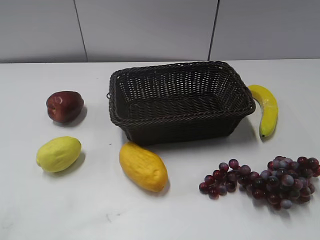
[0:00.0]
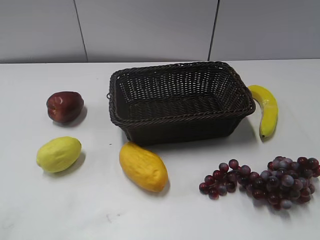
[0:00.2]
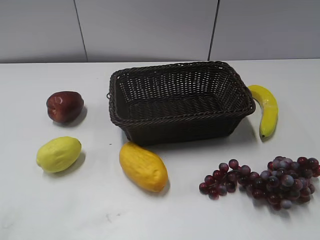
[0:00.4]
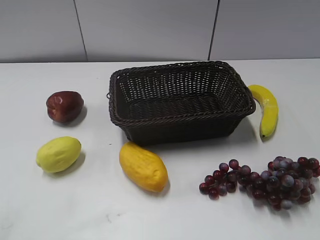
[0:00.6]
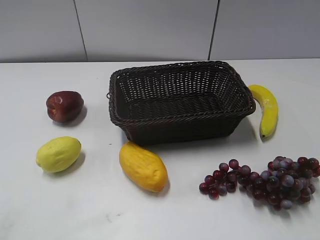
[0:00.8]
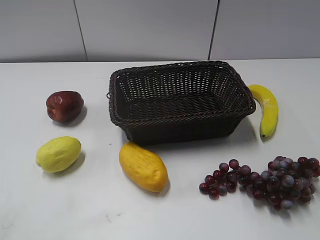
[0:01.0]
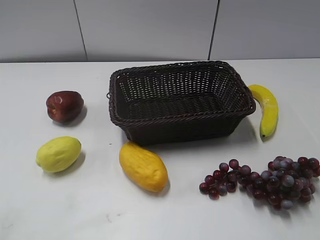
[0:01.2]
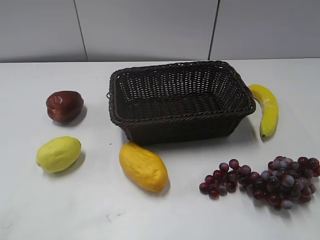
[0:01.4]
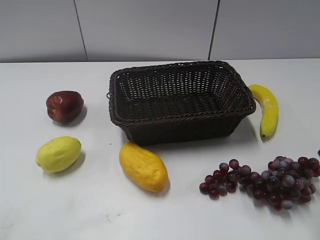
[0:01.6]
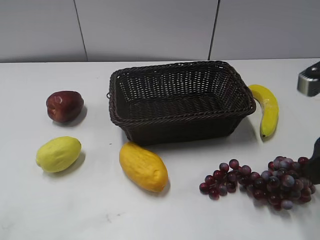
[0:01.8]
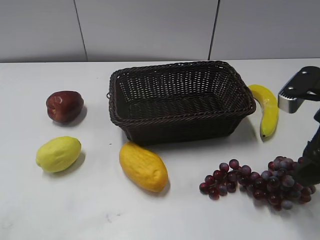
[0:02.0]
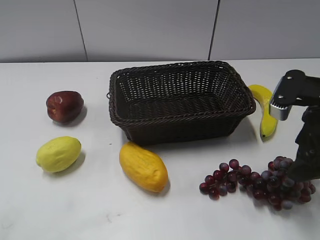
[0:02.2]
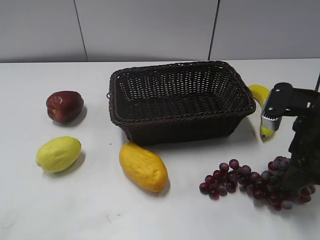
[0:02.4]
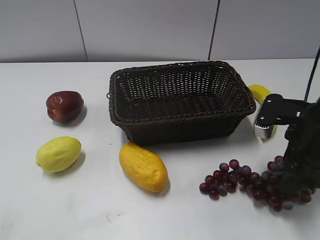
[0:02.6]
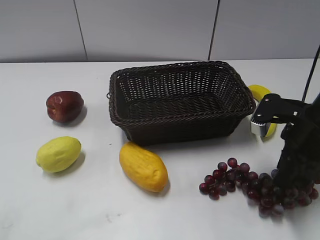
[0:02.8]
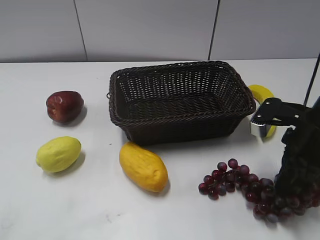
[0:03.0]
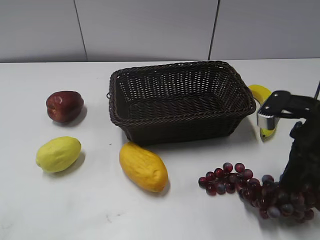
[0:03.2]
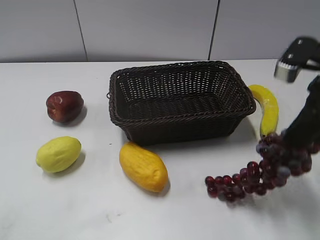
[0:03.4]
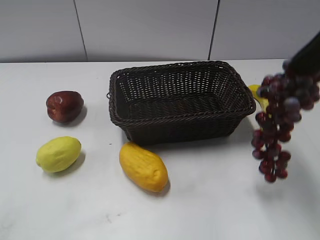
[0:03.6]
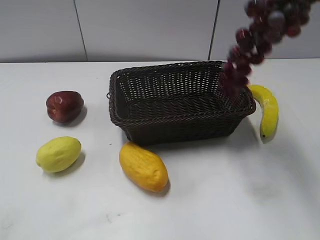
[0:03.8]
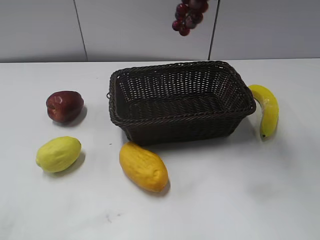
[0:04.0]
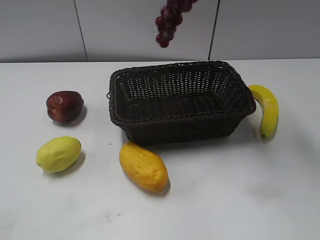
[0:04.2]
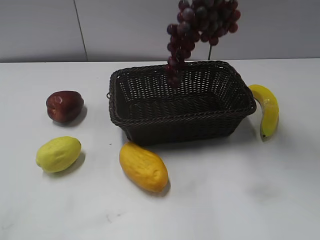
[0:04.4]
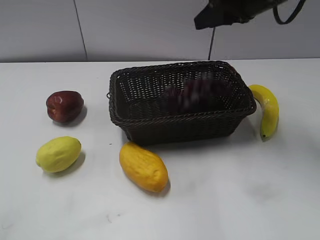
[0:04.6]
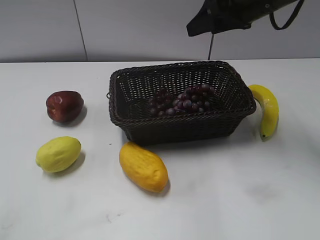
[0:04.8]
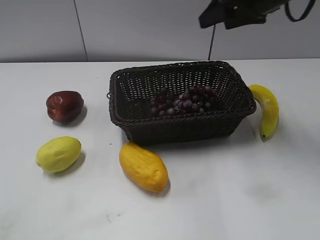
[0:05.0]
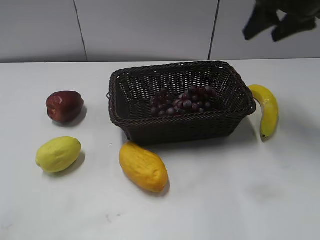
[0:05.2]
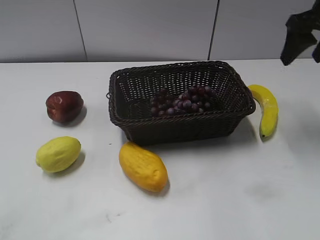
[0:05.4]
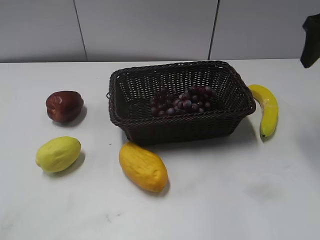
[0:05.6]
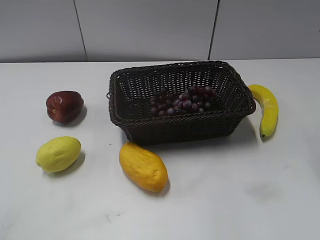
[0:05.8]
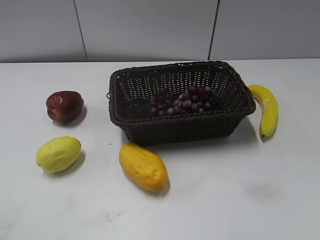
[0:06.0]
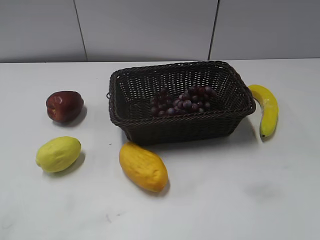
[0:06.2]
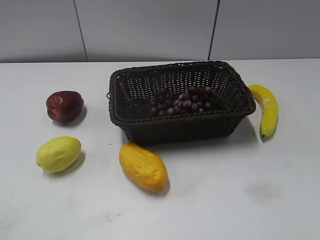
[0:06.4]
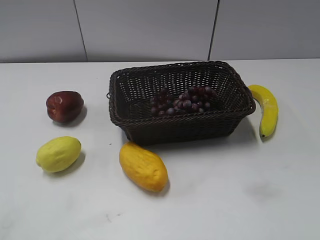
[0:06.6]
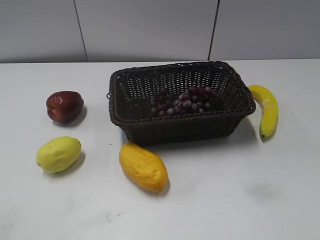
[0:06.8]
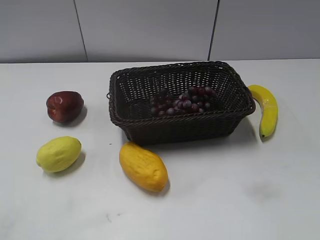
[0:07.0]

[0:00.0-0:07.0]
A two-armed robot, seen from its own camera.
Step, 0:01.6 to 0:03.0: Grasp the grape with right gripper.
Step, 0:03.4 to 0:05.0: Place the grape in the basket with right gripper.
0:01.4 to 0:02.8: The right gripper goes approximately 20 cm downward and forward, and closes up.
0:02.8 to 0:04.2: The right gripper is displaced upward by approximately 25 cm, and closes.
0:04.2 to 0:05.6: The right gripper travels downward and to the right by some 15 cm, and opens.
0:05.6 to 0:07.0: The right gripper is displaced backward by approximately 35 cm.

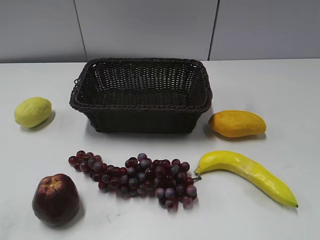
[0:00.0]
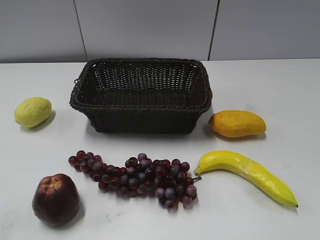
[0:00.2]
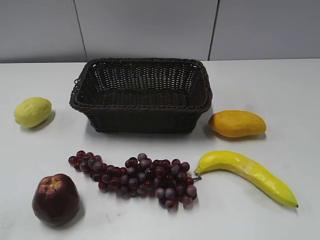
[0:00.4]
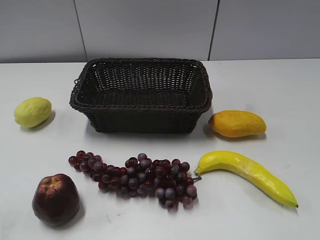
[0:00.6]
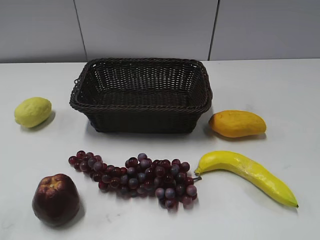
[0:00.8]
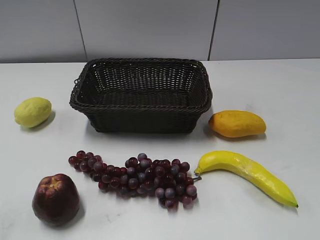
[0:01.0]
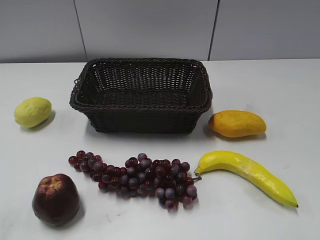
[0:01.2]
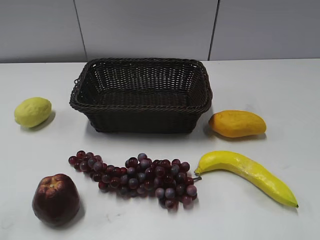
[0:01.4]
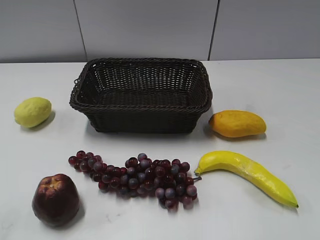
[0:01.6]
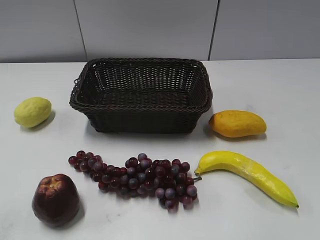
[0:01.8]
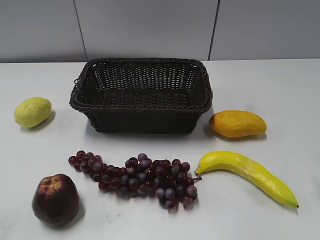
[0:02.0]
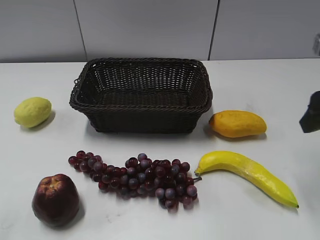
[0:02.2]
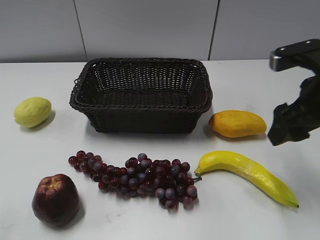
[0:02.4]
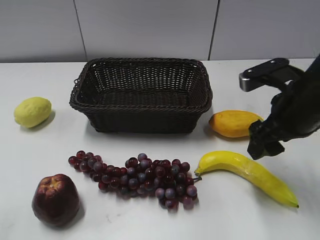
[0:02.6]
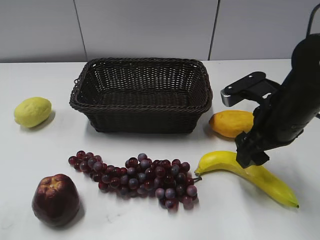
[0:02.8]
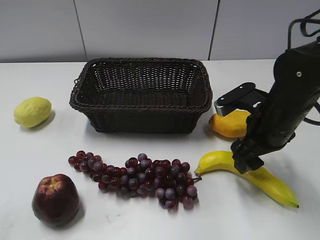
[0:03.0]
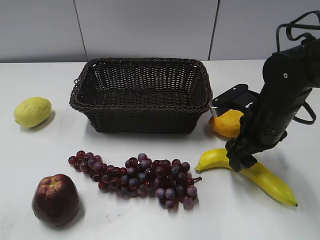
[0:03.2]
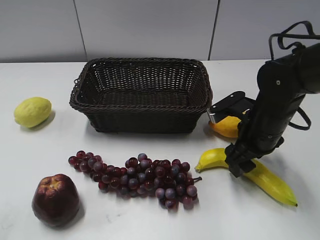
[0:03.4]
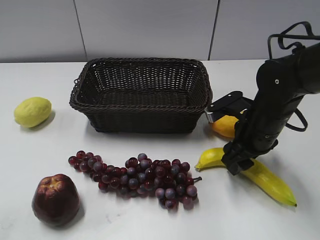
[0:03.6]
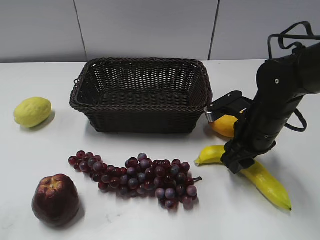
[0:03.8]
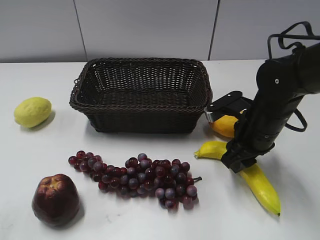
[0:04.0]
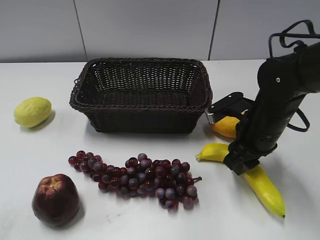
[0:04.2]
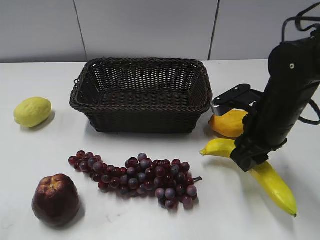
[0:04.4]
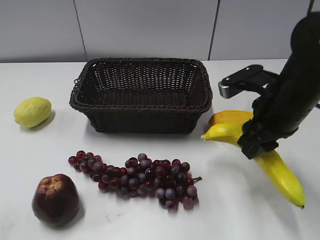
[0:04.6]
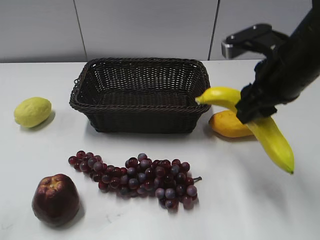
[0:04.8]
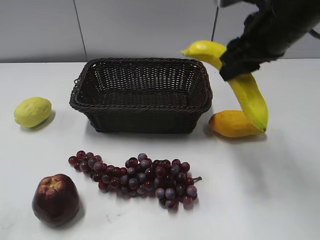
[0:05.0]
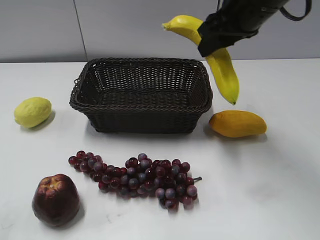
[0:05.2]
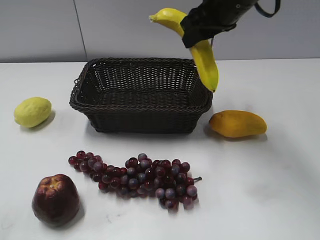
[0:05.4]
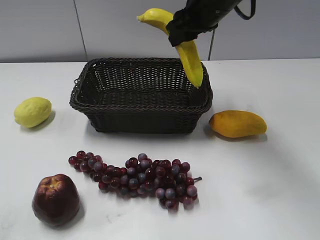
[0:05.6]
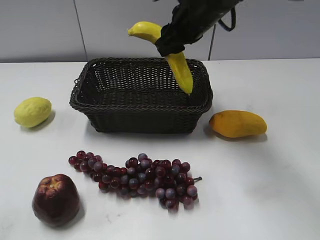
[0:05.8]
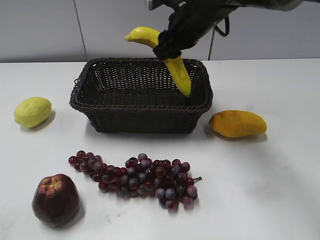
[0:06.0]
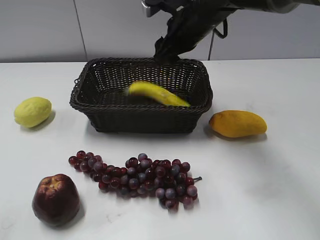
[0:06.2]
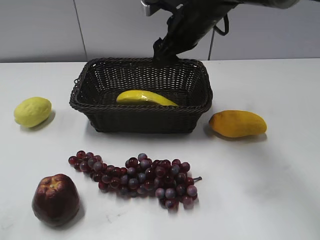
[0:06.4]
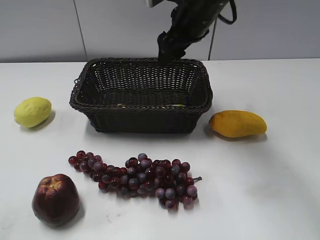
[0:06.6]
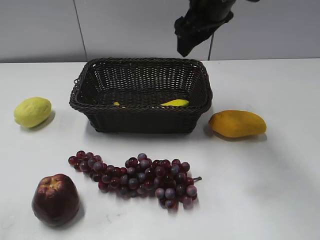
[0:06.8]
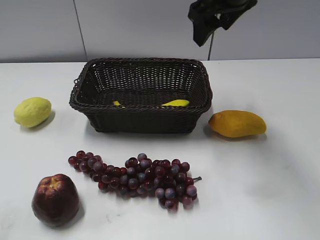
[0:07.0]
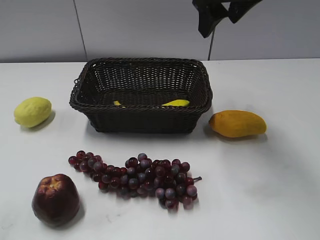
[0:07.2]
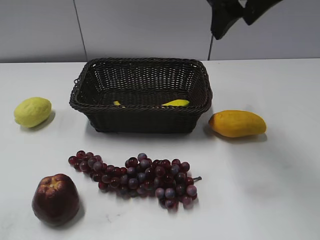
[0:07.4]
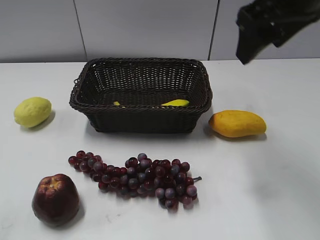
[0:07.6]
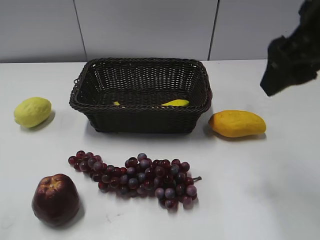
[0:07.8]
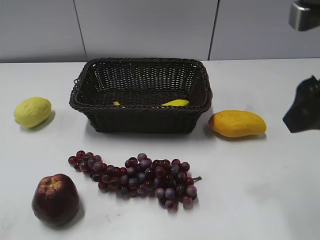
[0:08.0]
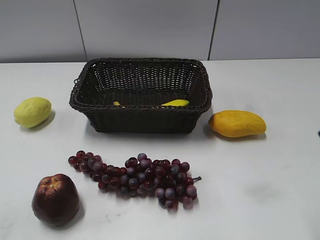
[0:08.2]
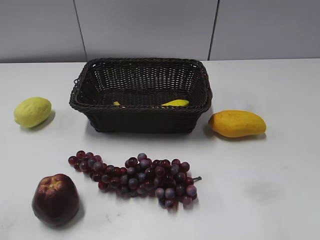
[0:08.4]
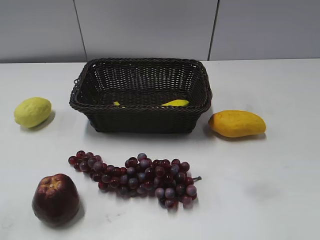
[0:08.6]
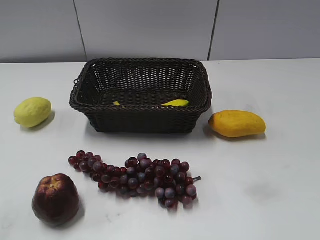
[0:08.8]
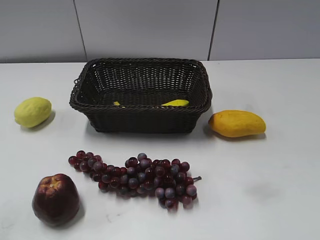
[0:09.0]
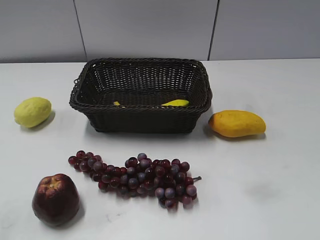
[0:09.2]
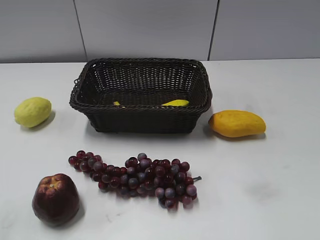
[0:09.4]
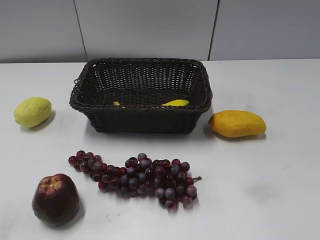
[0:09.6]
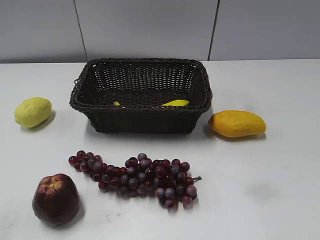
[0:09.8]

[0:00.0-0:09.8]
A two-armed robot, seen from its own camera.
Step, 0:02.2 to 0:03.8: Grasp the banana with right gripper.
Step, 0:04.0 to 0:06.6: Place the banana in the basket with right gripper.
0:01.4 to 0:02.8: The right gripper goes roughly 25 cm forward, downward and to the left.
0:02.8 to 0:04.2: The right gripper closes up.
0:04.2 to 0:05.6: The right gripper is displaced upward, forward and to the left by approximately 20 cm.
0:05.6 to 0:07.0: The right gripper travels upward by some 5 cm, and opens its fingers.
0:07.0 to 0:08.4: The right gripper moves backward and to the right, about 30 cm.

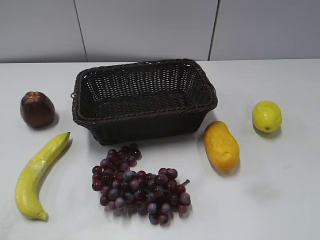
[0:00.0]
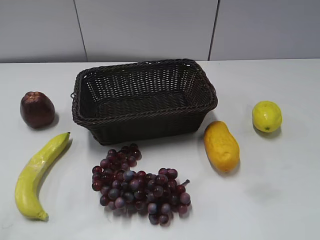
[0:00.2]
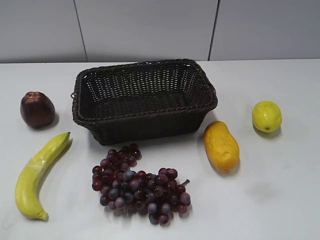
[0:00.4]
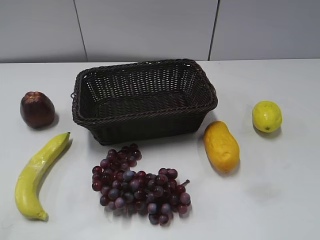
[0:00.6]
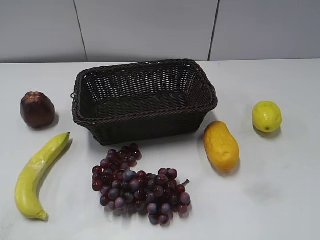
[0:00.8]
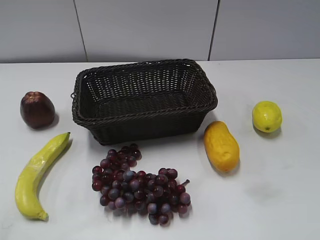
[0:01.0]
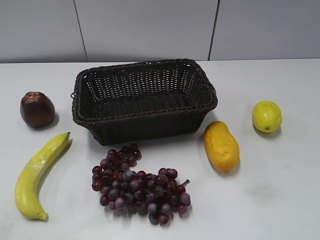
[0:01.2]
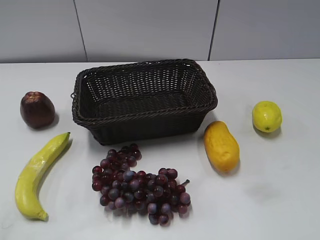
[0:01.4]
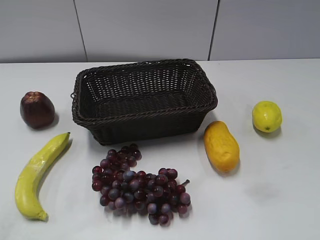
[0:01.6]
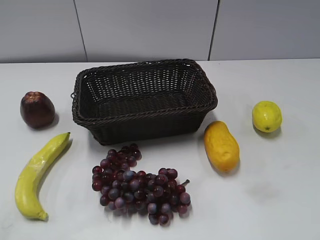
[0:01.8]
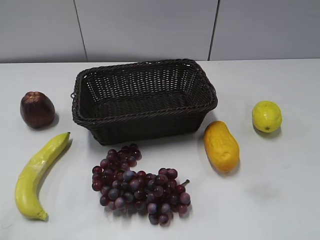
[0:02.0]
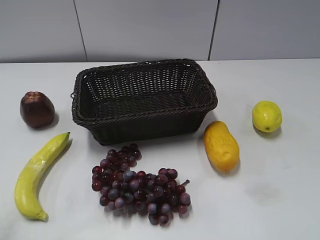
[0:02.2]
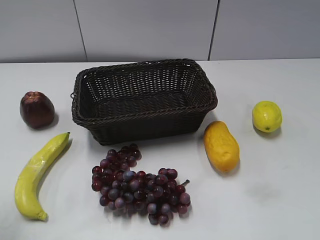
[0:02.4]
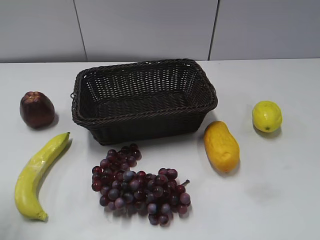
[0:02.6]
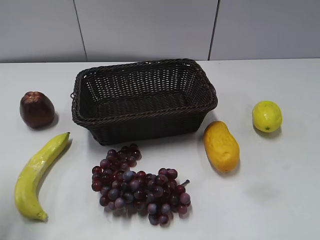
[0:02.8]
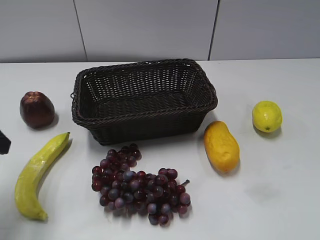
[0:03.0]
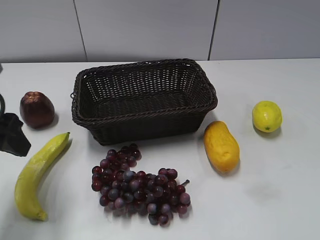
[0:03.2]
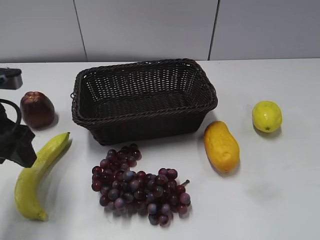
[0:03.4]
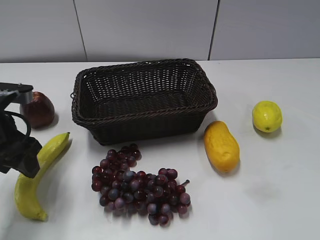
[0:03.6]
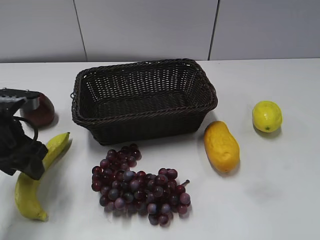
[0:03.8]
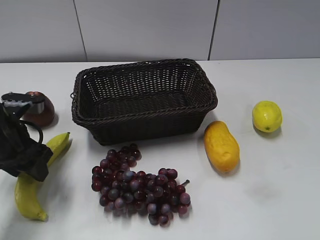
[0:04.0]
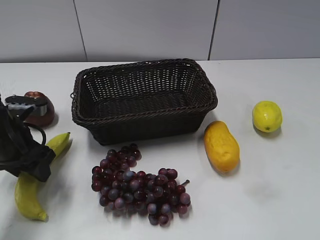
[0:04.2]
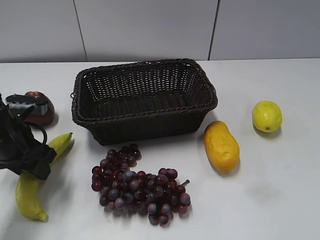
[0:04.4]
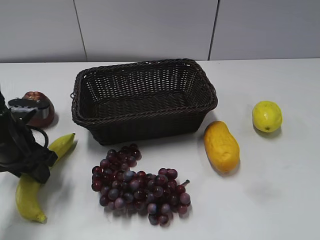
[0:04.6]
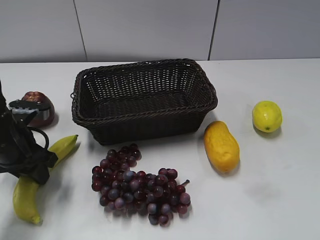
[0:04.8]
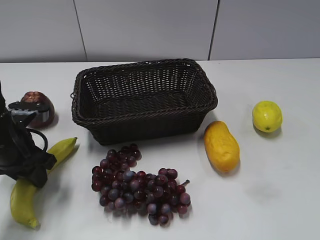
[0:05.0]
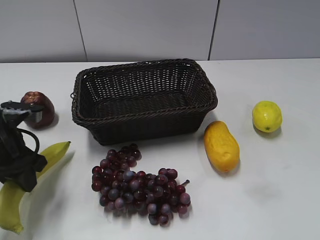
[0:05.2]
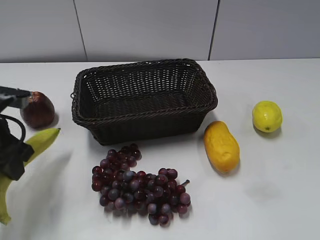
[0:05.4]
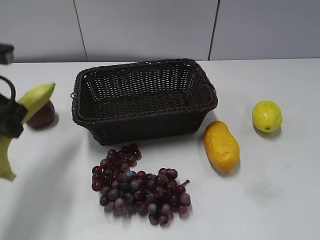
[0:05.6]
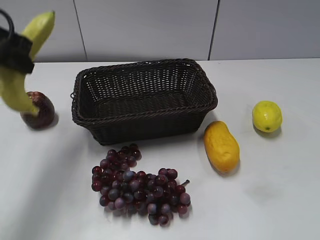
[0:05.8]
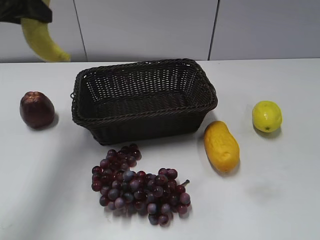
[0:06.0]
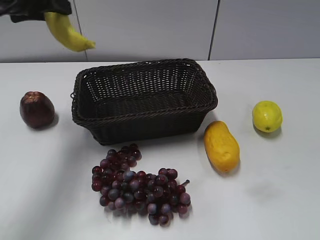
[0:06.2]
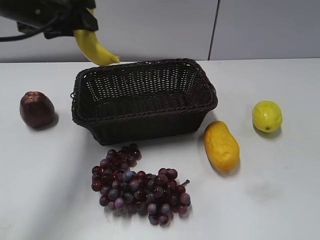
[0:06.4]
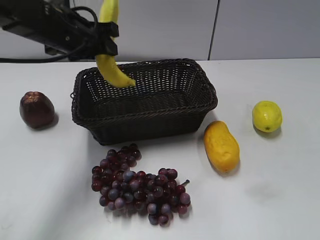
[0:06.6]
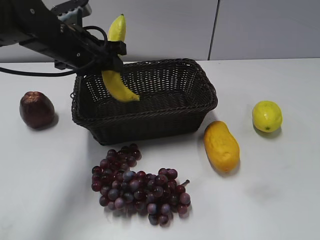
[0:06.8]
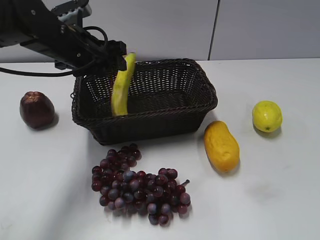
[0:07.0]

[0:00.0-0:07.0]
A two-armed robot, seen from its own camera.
Step, 0:03.0 to 0:04.4: Grasp the banana with left gripper.
0:01.4 to 0:02.8: The left gripper shifts roughly 20 cm forward, and opens.
0:02.8 to 0:04.2: The left gripper goes roughly 15 cm downward, forward and to the right.
0:04.2 to 0:05.6: The left gripper is displaced upward by approximately 10 cm, and closes its fingers.
0:05.6 to 0:07.0: The left gripper goes approximately 15 cm to the right and forward, moves roughly 10 cm upward and comes back, and opens its fingers.
